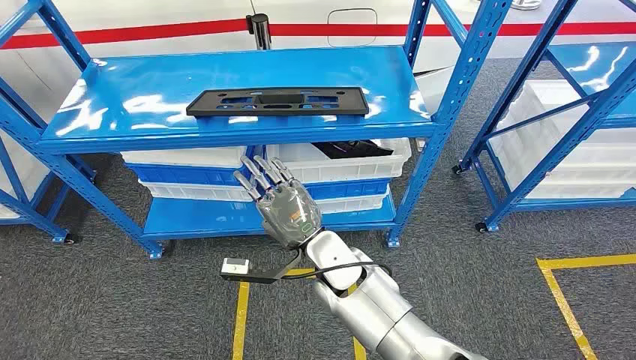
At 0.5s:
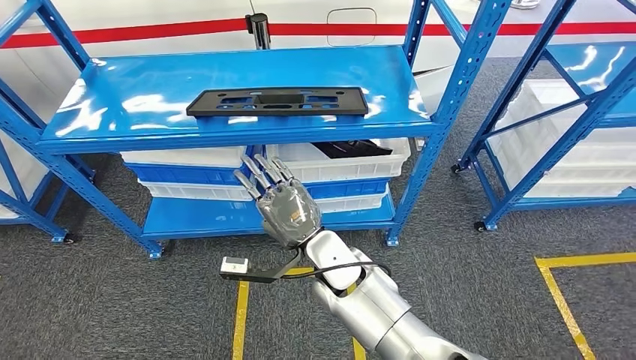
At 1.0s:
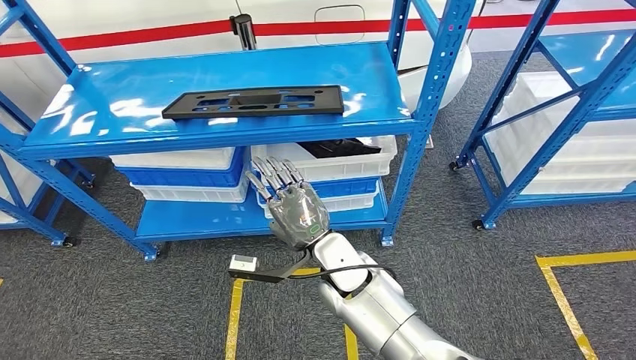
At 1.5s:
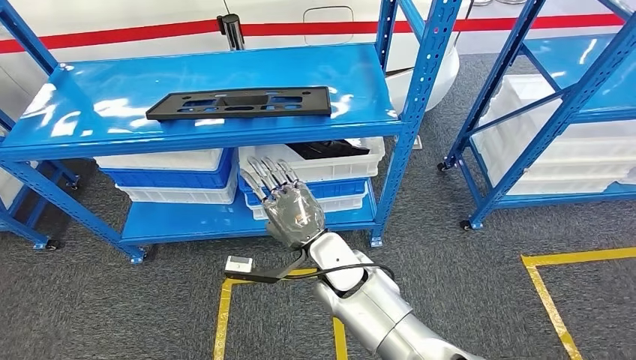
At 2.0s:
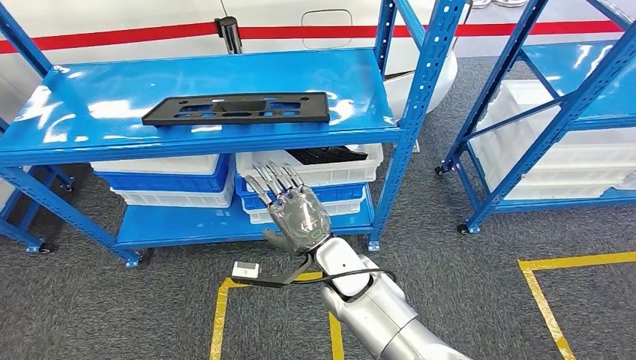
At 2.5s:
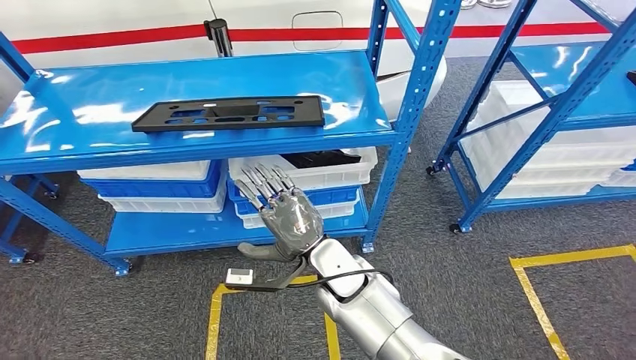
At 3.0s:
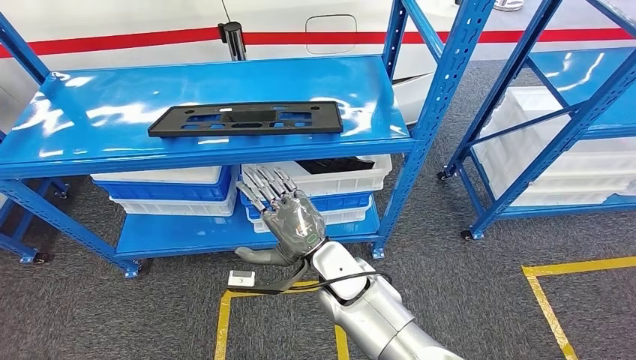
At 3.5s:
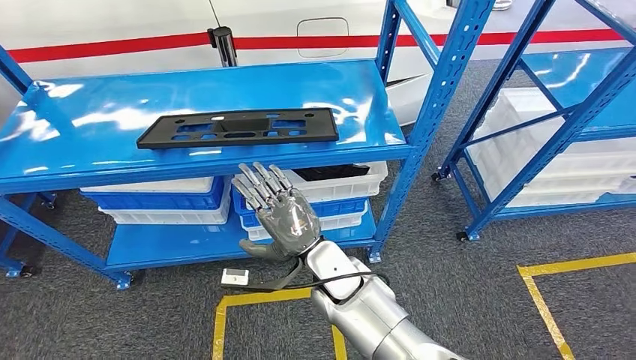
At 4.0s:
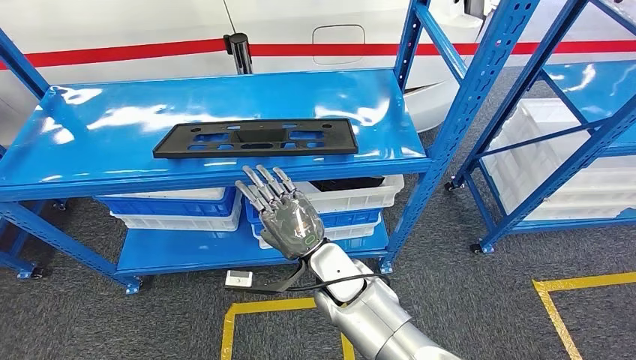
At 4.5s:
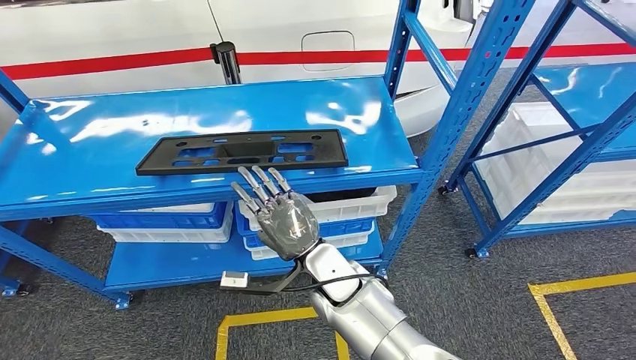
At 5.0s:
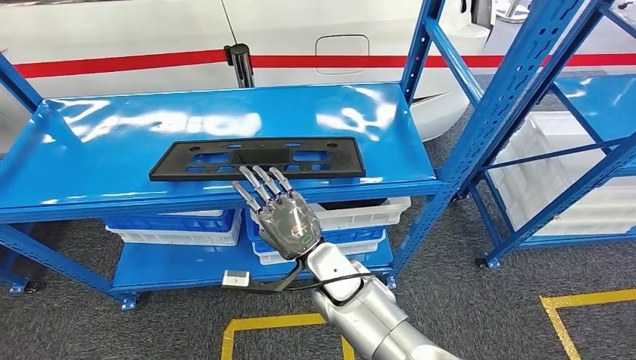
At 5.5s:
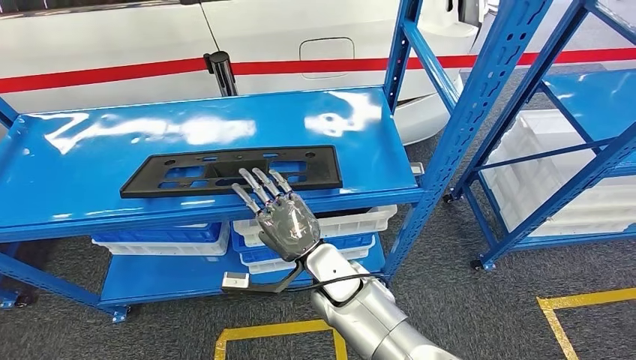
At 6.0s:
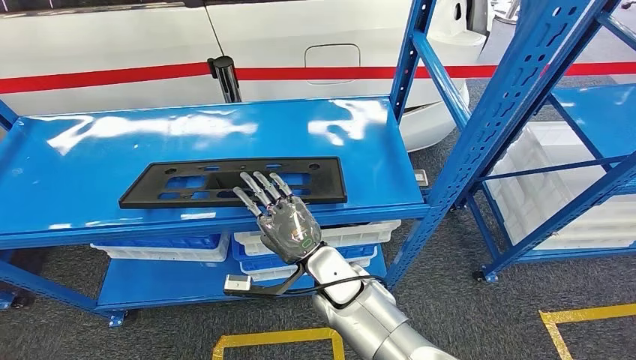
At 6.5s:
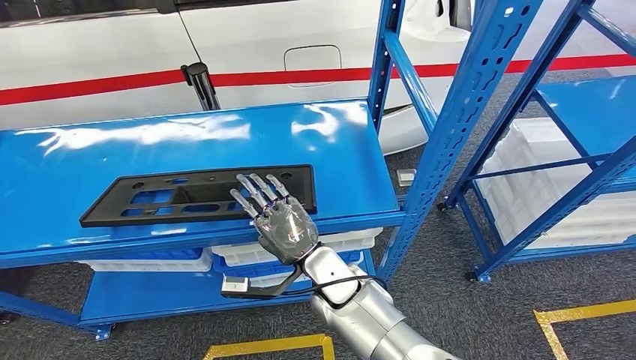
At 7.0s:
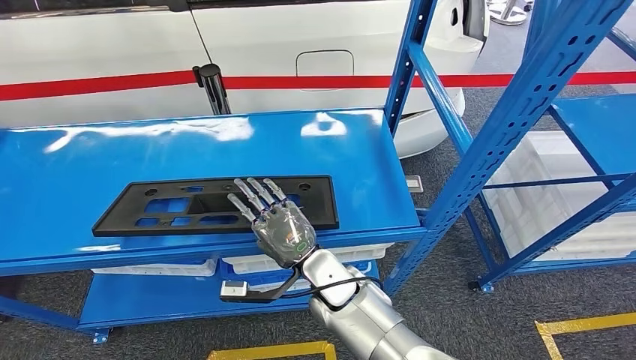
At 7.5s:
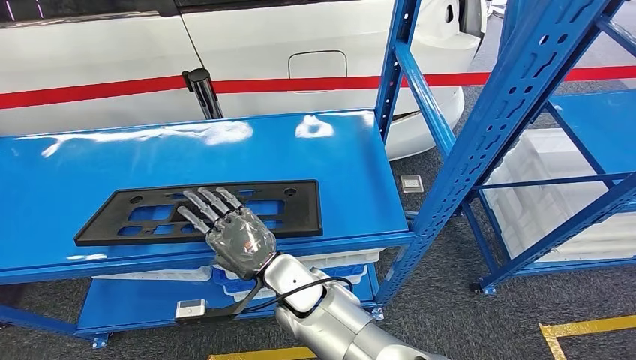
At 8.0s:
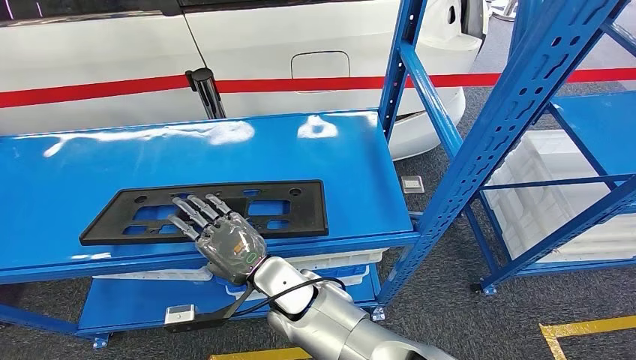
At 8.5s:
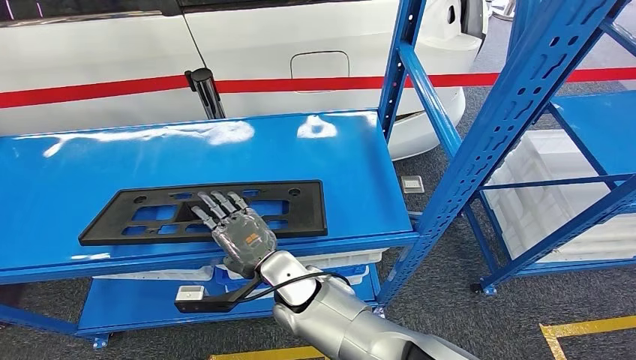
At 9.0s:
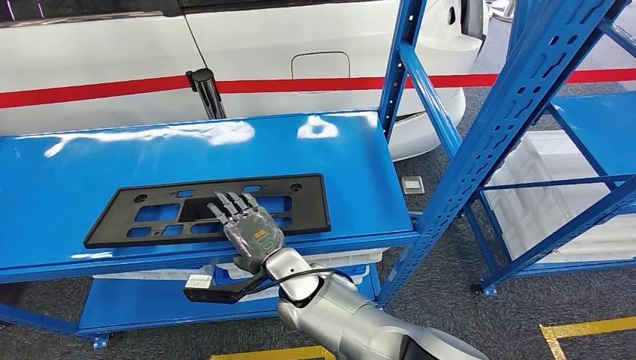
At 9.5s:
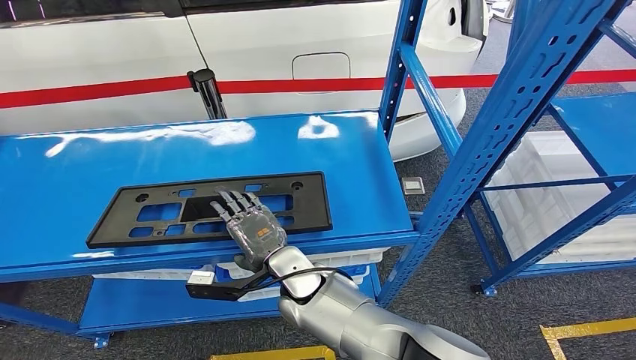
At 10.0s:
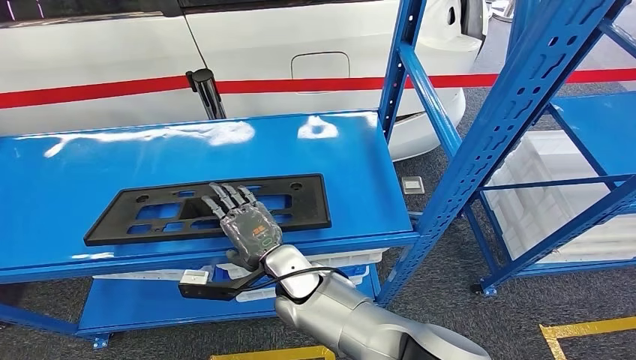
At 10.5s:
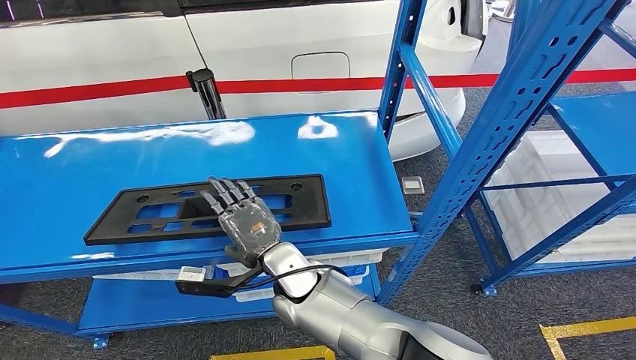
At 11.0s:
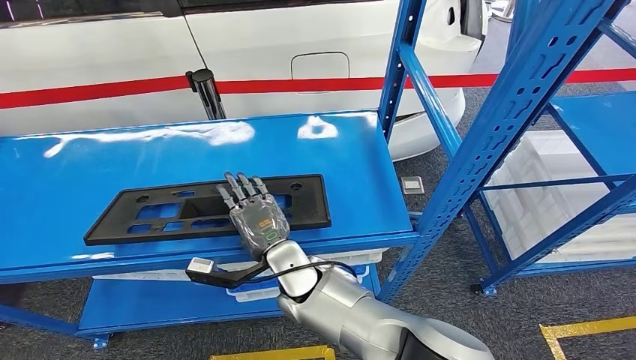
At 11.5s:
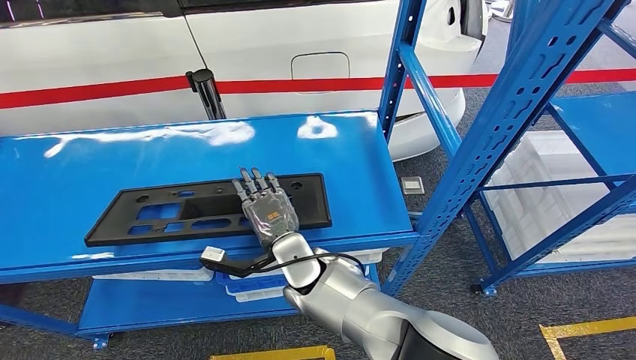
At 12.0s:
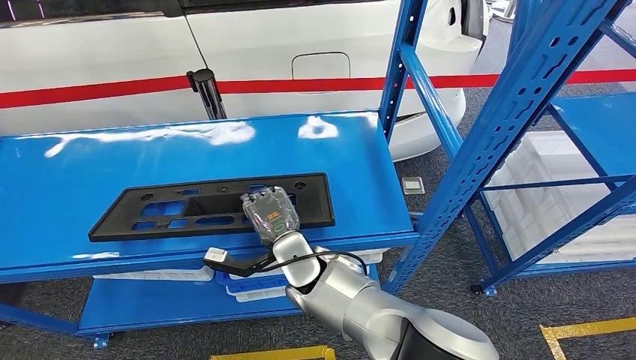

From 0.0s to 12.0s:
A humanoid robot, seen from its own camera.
From 8.0s to 10.0s: The hands make only small movements.

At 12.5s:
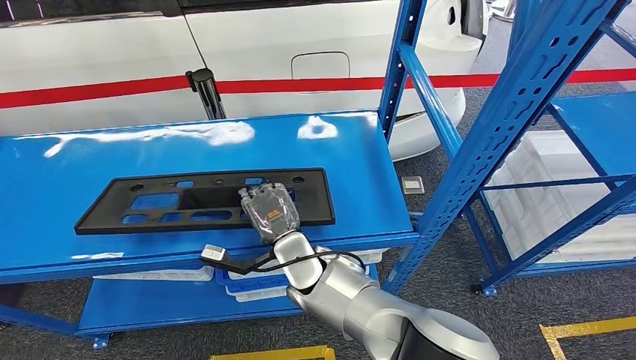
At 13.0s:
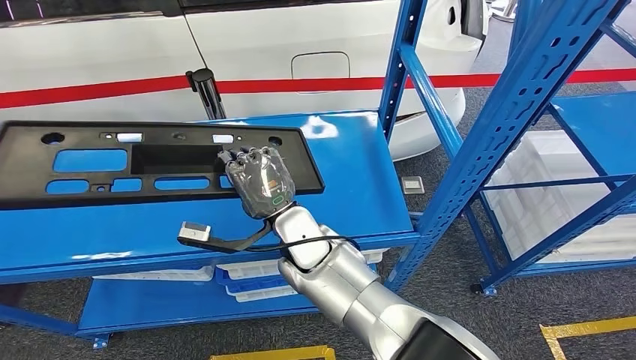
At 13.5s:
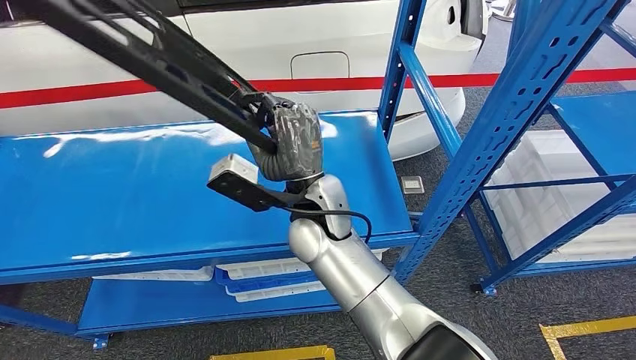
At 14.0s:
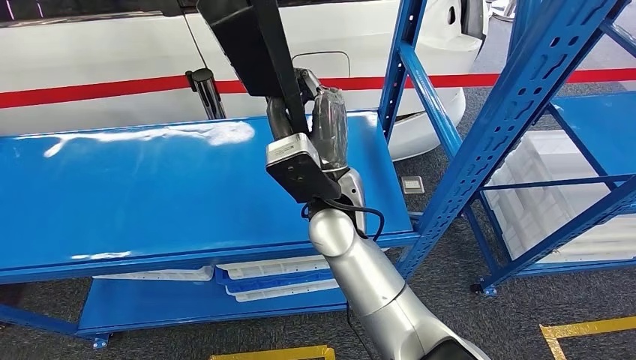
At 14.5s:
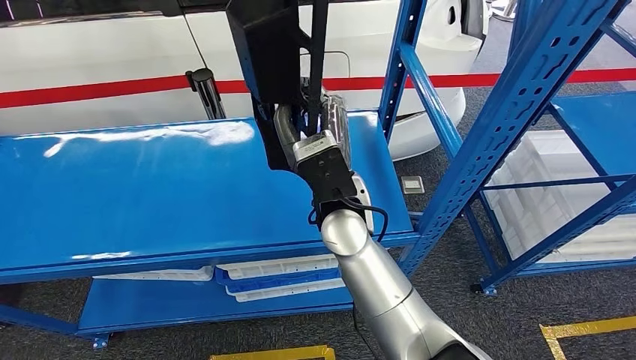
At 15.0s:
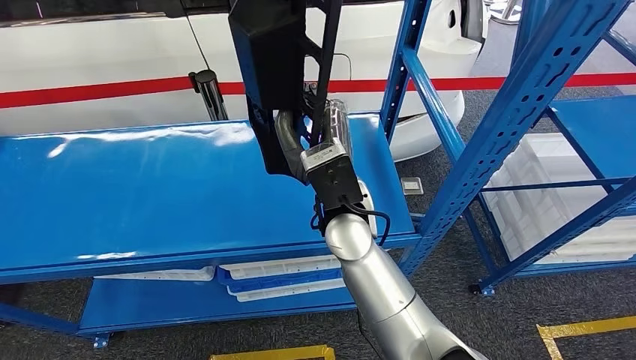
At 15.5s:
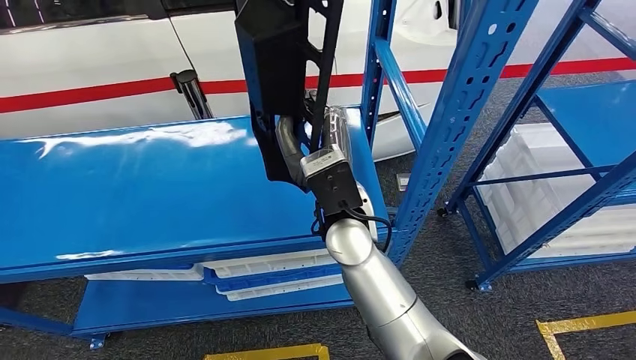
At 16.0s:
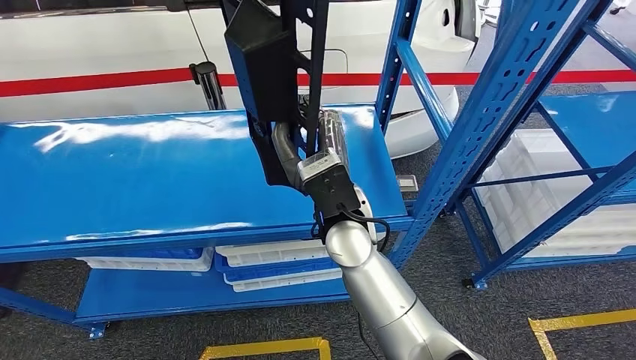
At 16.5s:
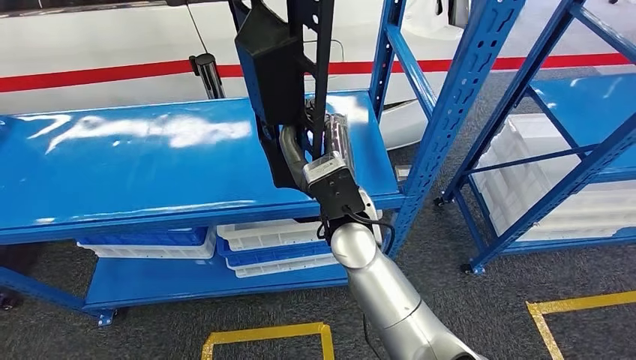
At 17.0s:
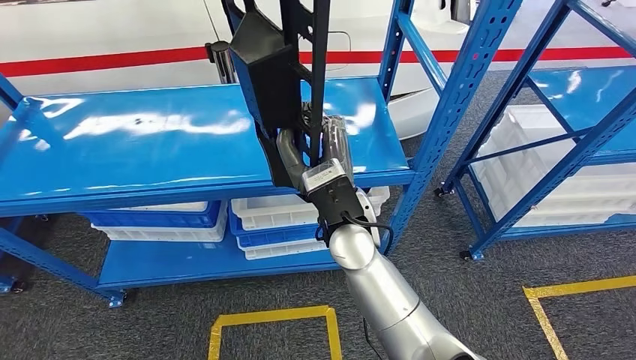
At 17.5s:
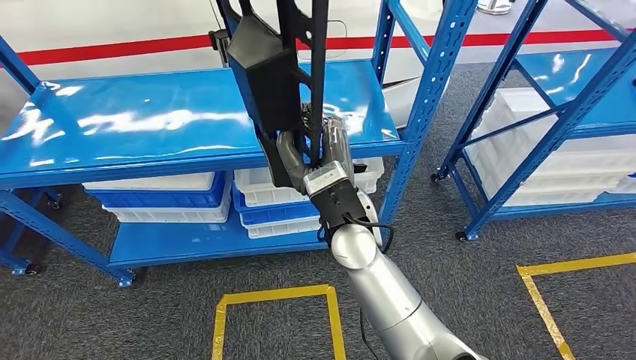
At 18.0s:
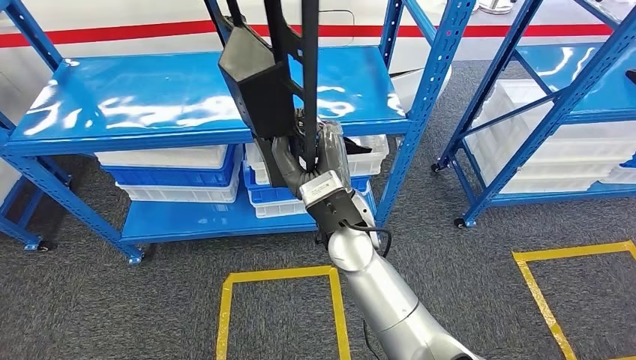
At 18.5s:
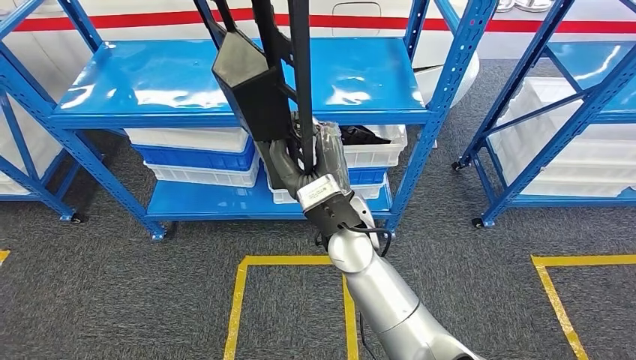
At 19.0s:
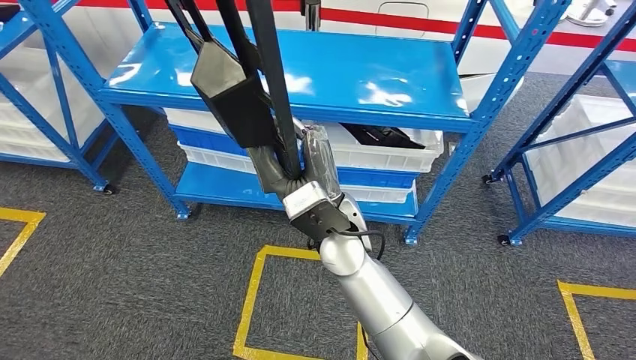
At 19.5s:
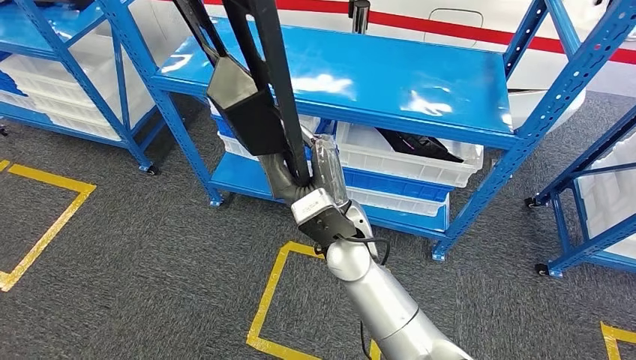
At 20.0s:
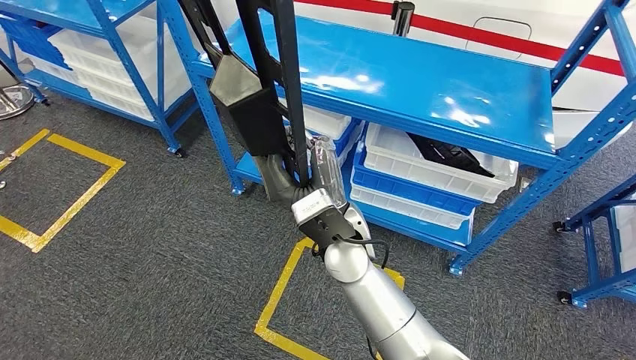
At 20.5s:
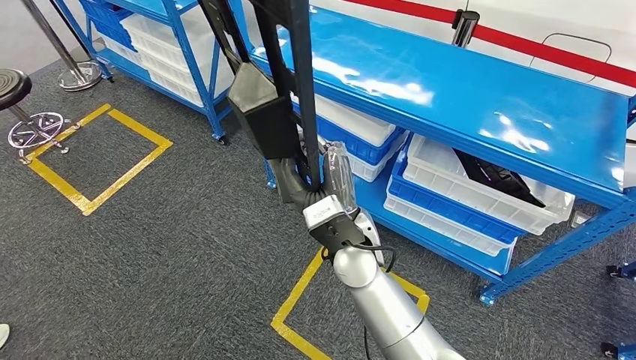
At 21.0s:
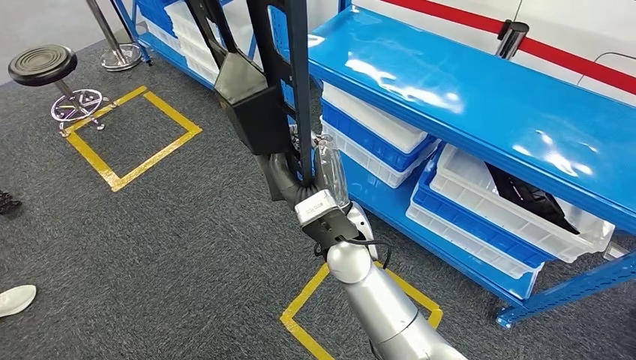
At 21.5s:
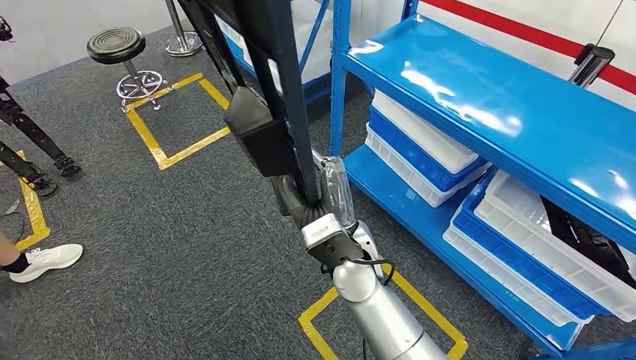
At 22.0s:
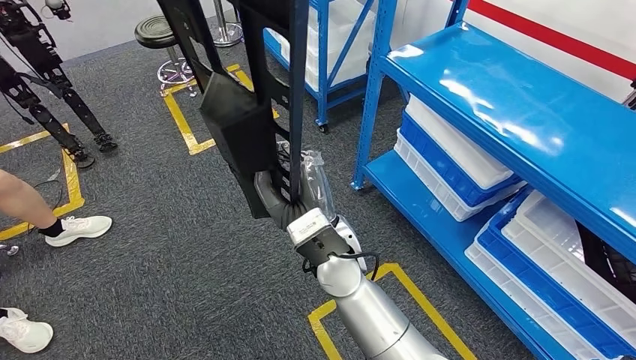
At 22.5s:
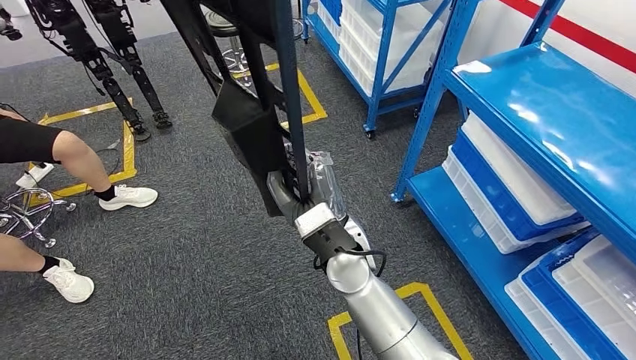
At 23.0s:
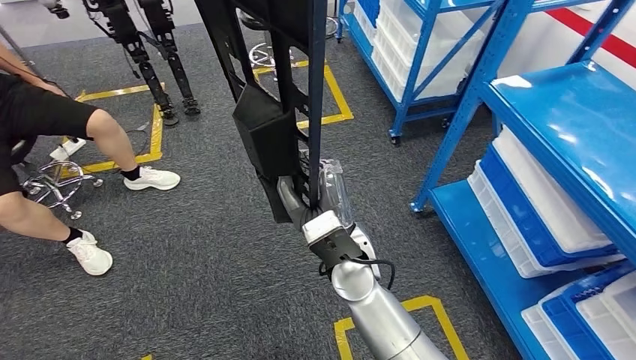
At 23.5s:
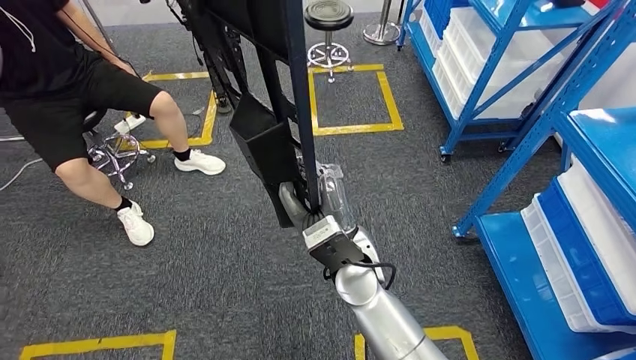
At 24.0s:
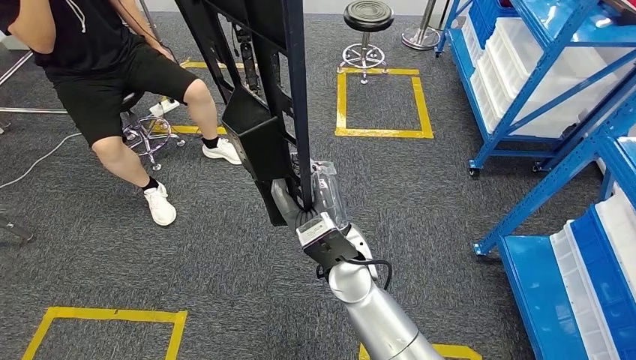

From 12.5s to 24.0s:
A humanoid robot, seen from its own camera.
Step, from 12.5s to 17.0s: Pick up the large material from the shelf.
From 12.5s to 14.5s: The right hand goes about 15 cm upward and to the right.
